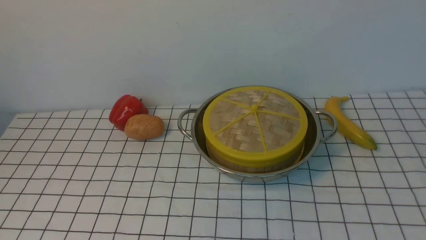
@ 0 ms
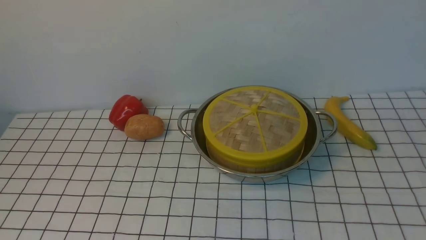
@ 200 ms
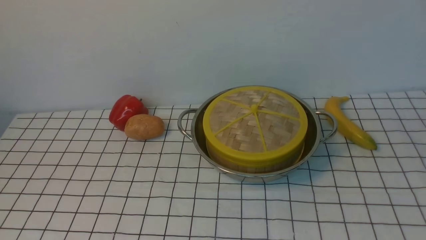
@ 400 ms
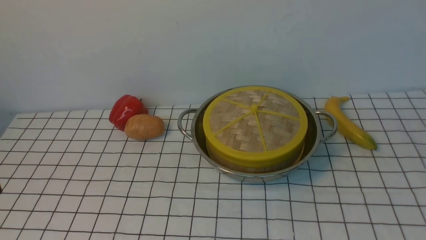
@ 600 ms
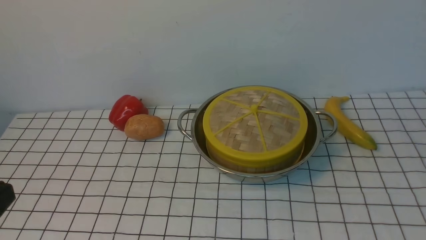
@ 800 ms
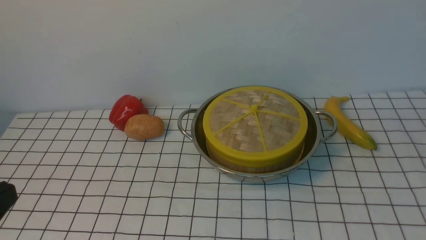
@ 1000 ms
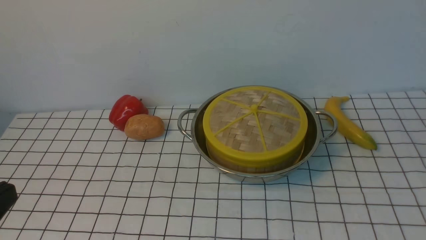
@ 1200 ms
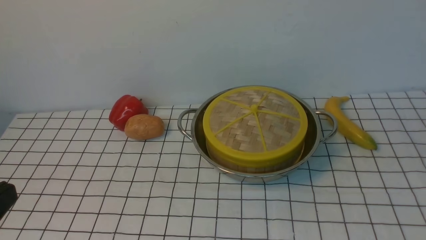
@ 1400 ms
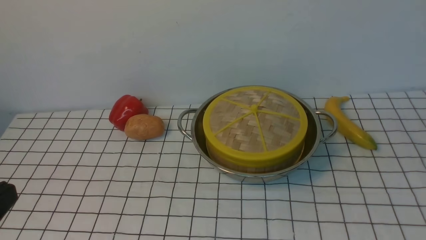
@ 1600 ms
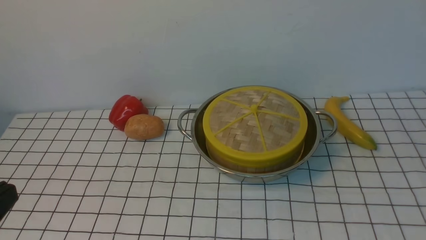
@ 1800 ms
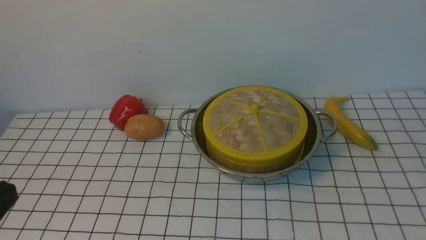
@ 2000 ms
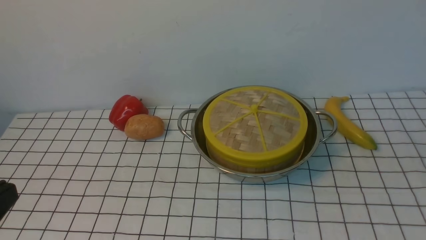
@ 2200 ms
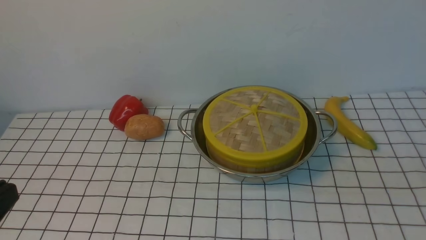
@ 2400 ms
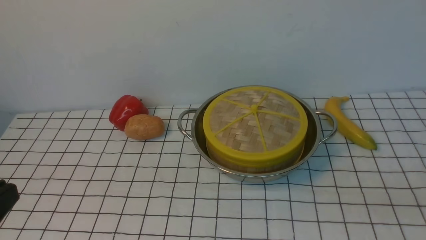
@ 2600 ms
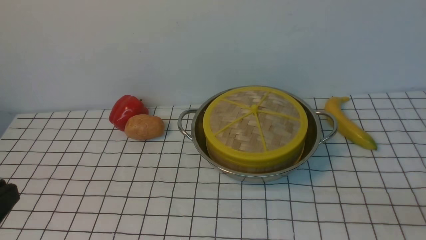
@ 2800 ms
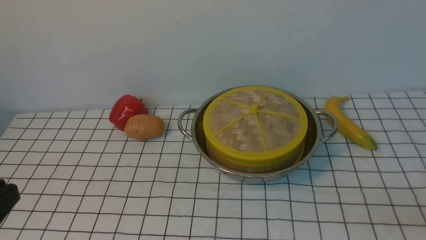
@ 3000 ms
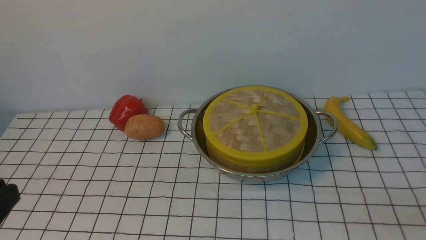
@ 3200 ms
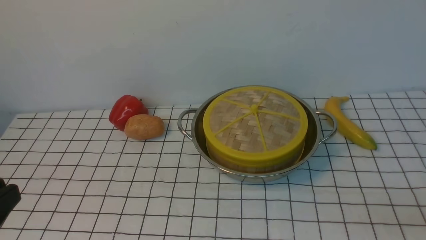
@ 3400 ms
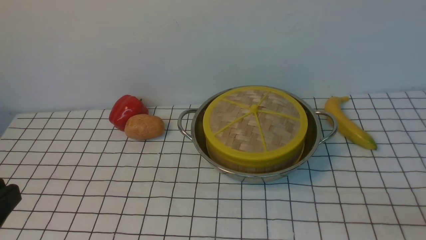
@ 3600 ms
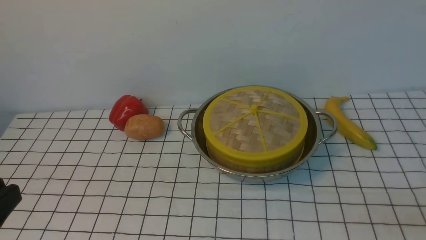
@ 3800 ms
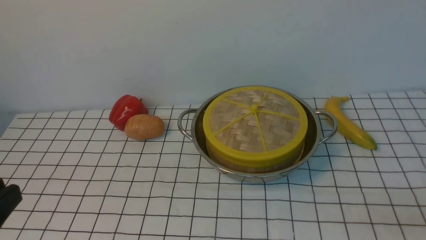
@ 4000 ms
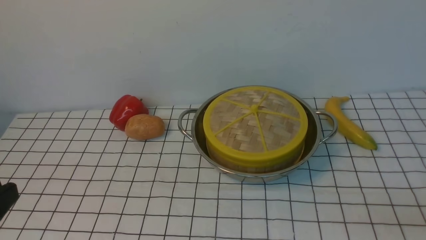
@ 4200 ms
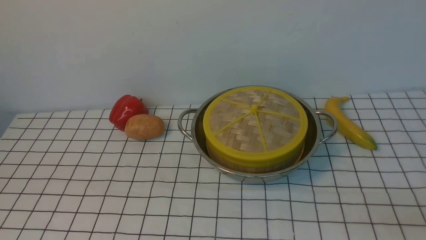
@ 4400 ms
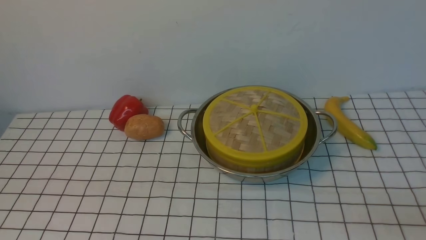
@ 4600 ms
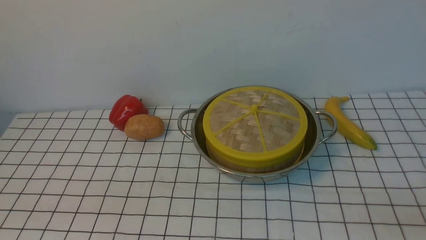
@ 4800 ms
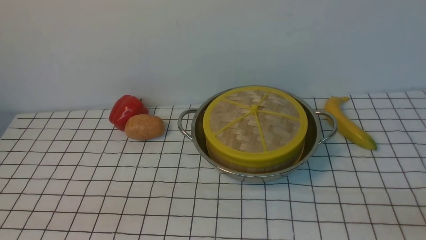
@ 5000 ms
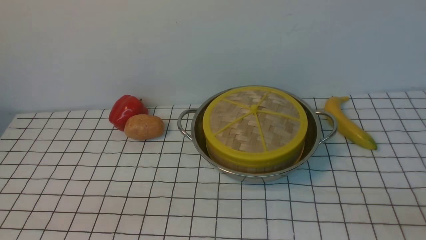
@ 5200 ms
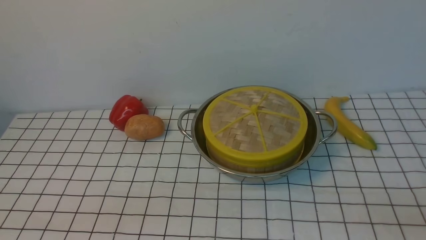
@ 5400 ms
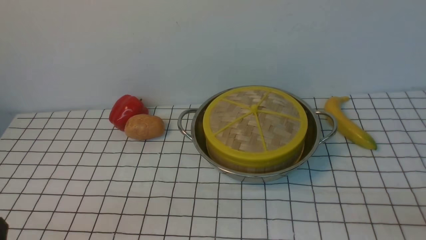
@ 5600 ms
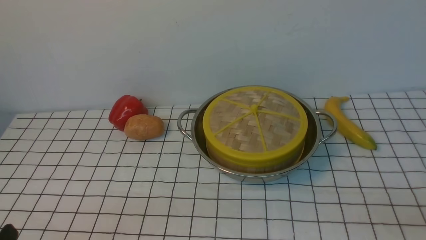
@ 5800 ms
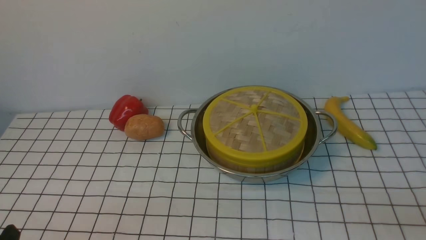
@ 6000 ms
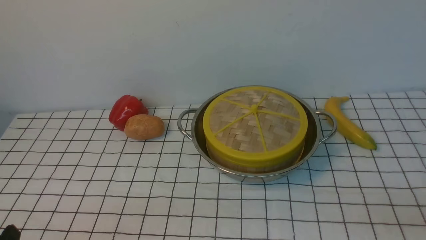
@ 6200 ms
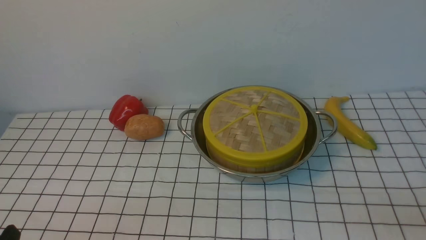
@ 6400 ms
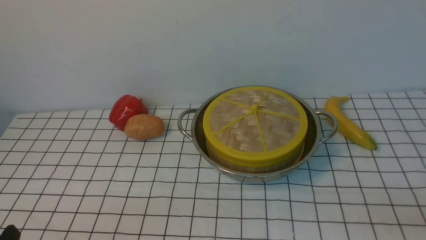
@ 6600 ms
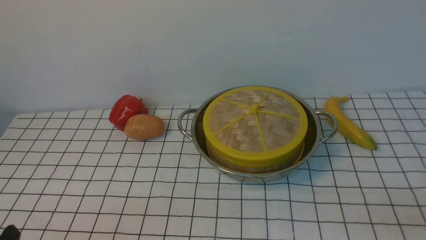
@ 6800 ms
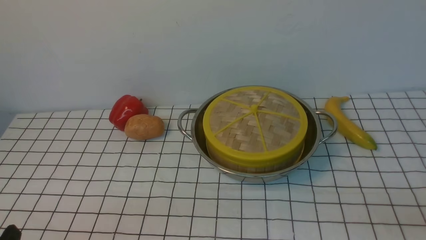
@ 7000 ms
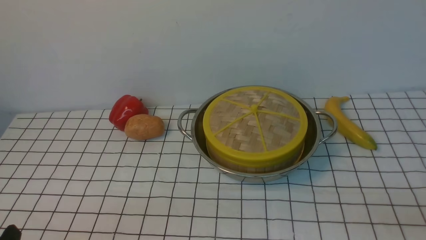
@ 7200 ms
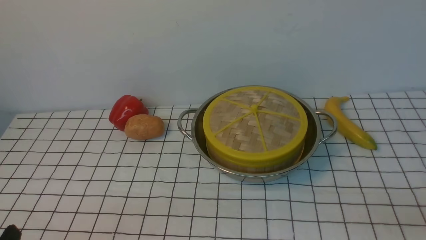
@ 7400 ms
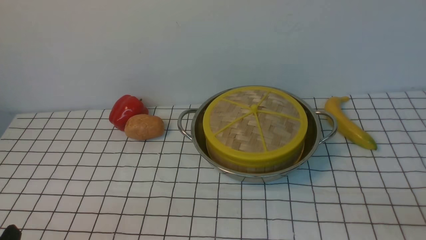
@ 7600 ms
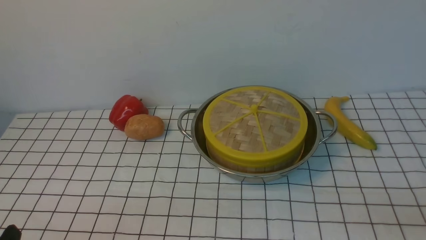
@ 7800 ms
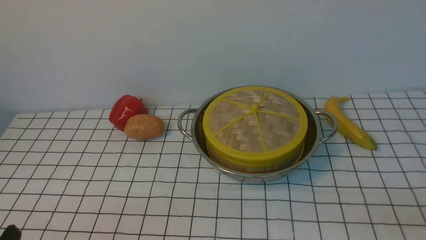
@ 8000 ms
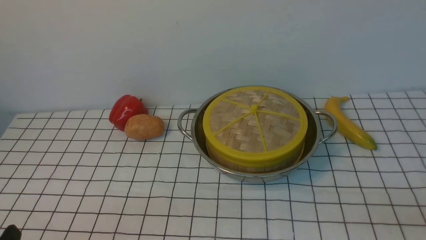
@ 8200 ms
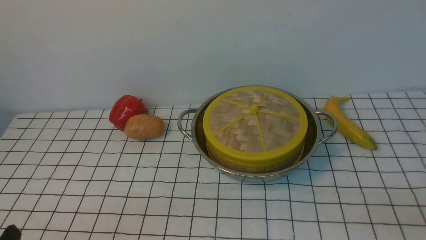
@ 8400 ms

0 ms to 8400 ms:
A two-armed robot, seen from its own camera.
Task of the whole recording: place the steamer in the pot on the white tablecloth, and put the lid on the steamer.
4200 ms to 5600 ms: The left gripper travels downward by roughly 10 cm.
7000 ms to 8400 ms: Both grippers stay about where they are.
